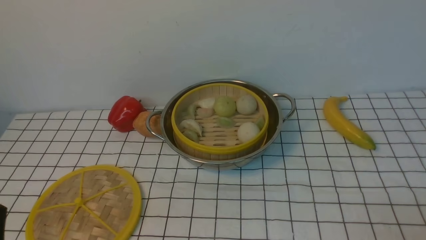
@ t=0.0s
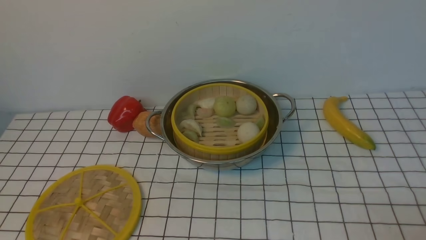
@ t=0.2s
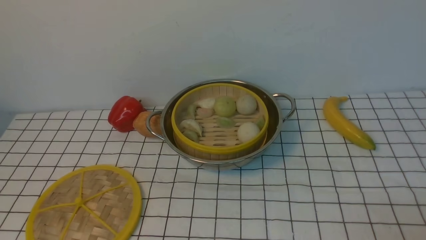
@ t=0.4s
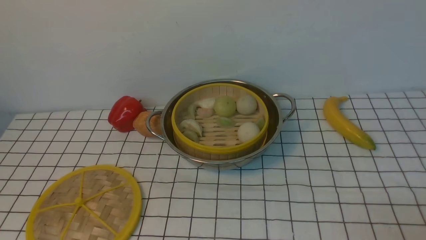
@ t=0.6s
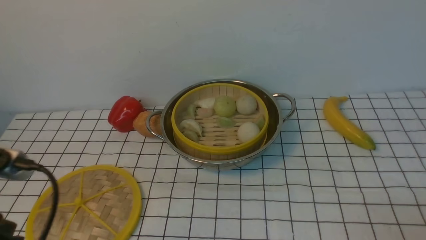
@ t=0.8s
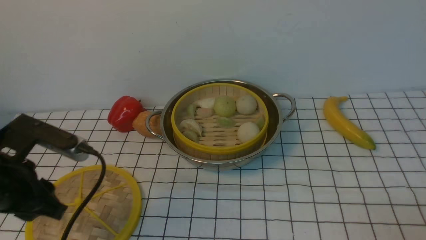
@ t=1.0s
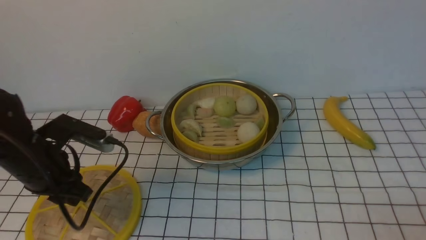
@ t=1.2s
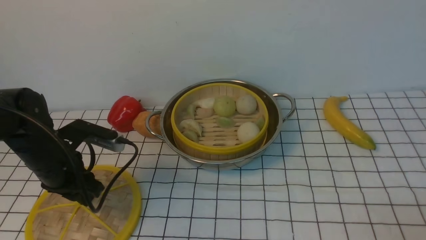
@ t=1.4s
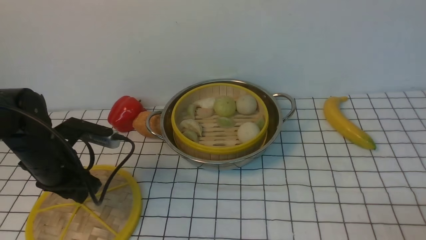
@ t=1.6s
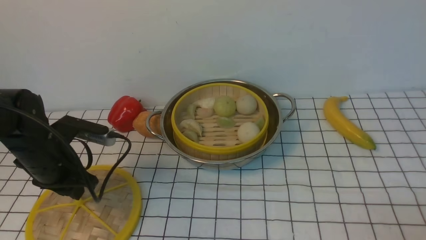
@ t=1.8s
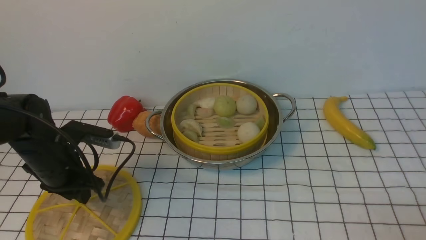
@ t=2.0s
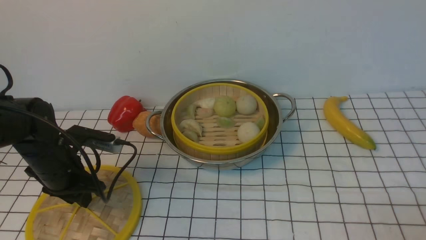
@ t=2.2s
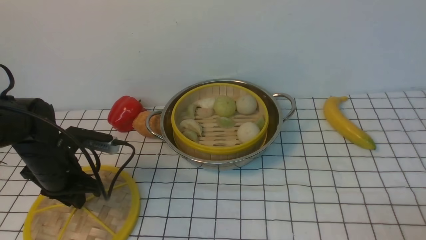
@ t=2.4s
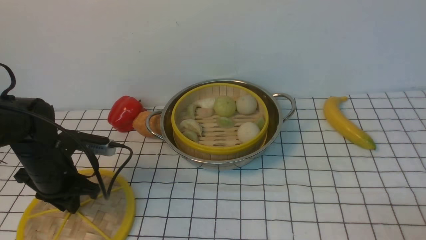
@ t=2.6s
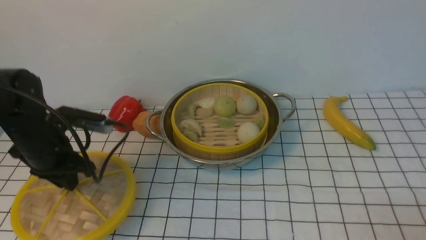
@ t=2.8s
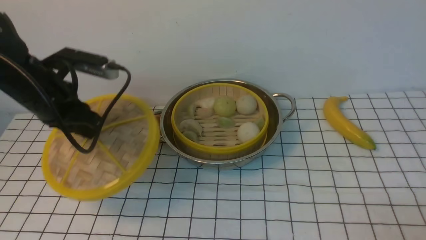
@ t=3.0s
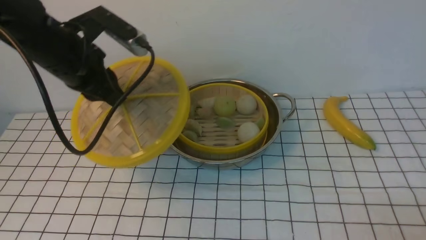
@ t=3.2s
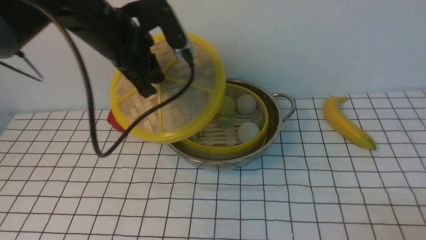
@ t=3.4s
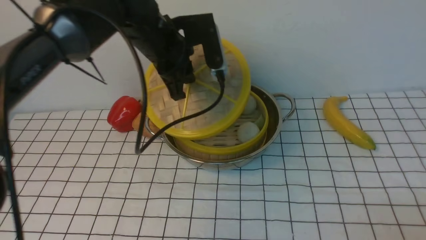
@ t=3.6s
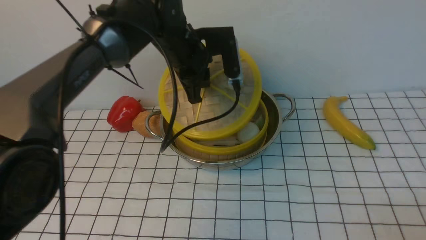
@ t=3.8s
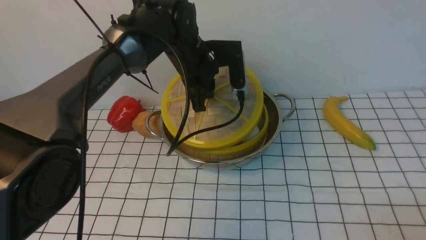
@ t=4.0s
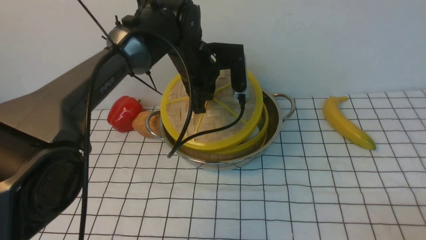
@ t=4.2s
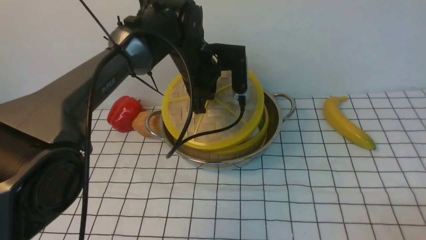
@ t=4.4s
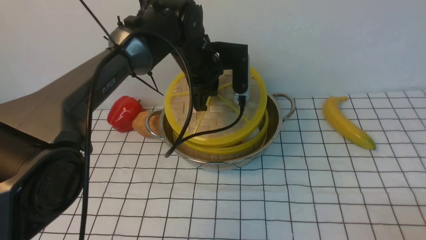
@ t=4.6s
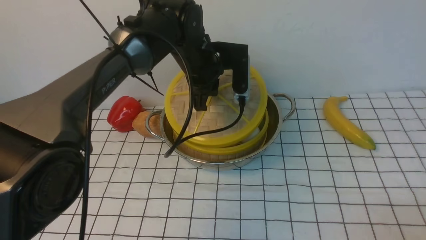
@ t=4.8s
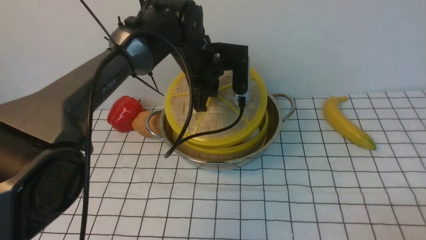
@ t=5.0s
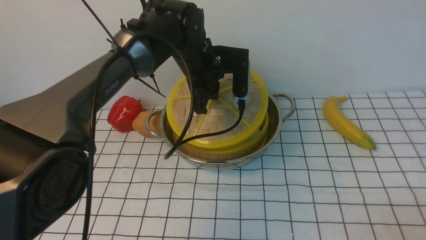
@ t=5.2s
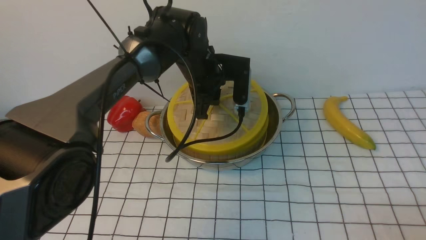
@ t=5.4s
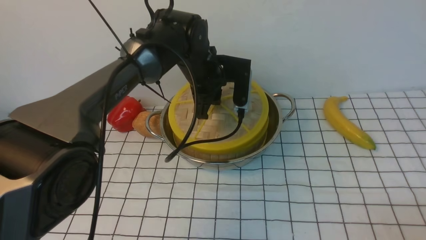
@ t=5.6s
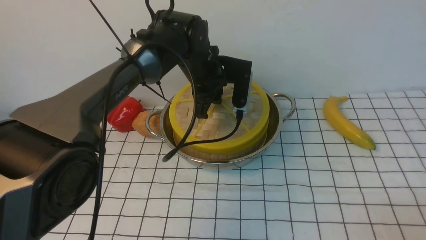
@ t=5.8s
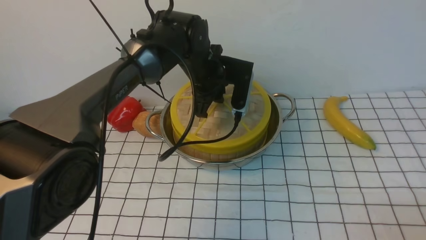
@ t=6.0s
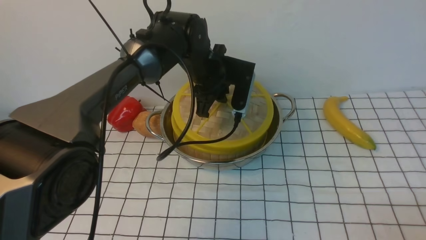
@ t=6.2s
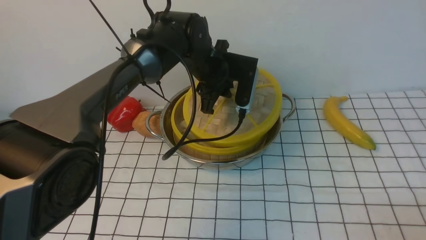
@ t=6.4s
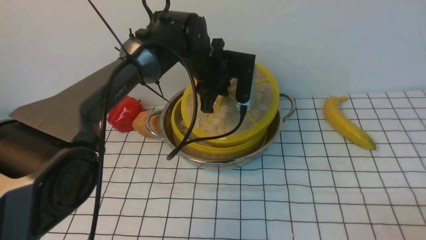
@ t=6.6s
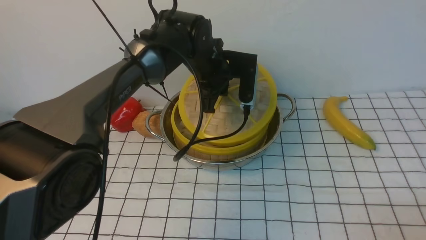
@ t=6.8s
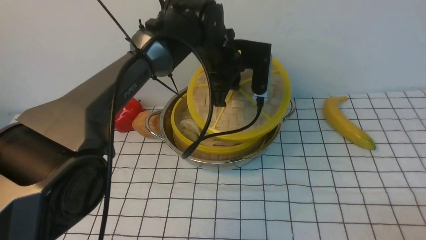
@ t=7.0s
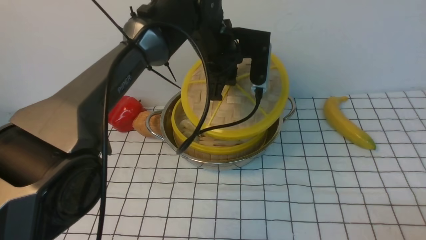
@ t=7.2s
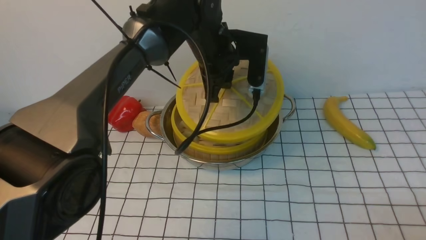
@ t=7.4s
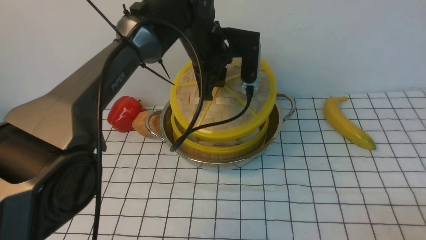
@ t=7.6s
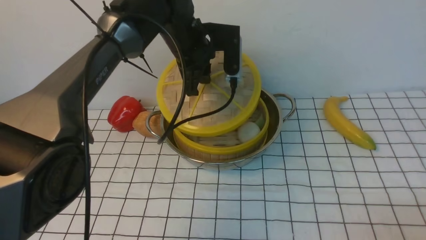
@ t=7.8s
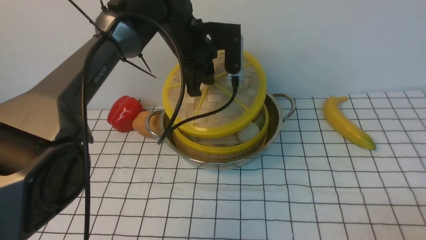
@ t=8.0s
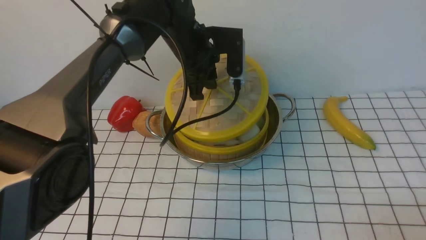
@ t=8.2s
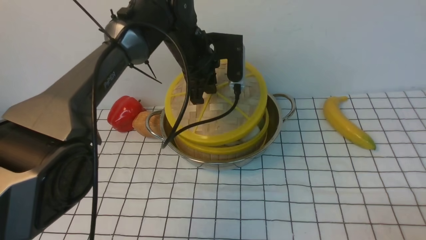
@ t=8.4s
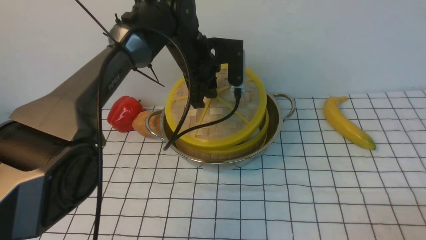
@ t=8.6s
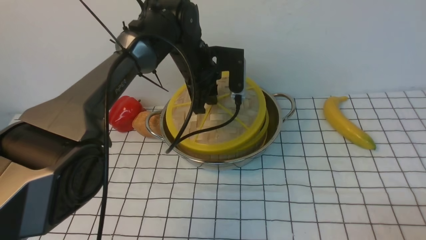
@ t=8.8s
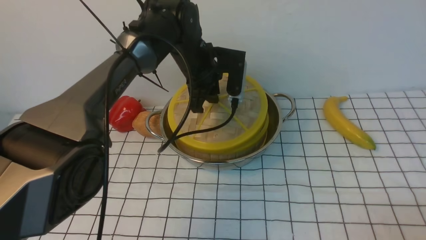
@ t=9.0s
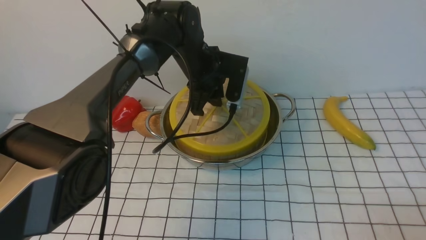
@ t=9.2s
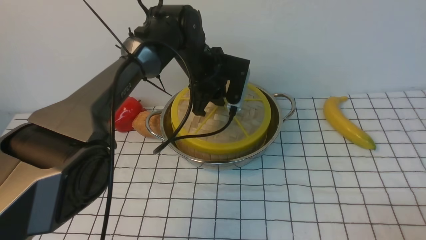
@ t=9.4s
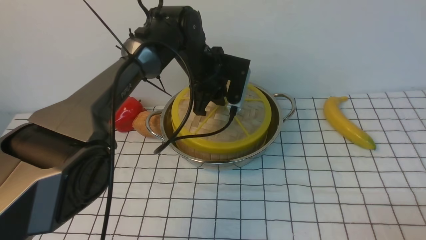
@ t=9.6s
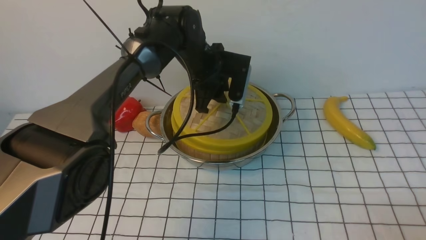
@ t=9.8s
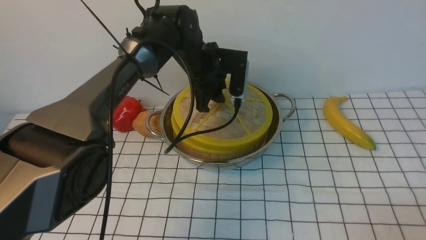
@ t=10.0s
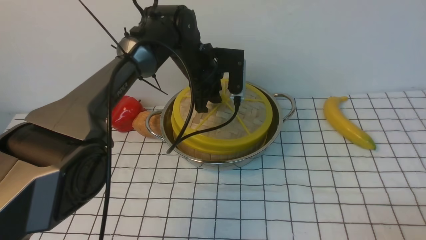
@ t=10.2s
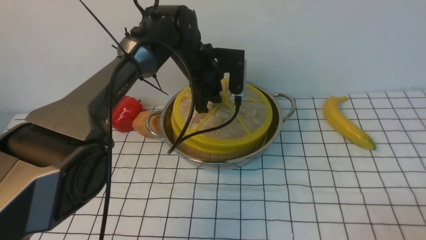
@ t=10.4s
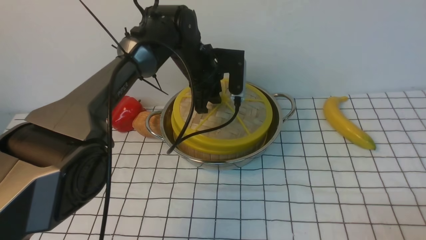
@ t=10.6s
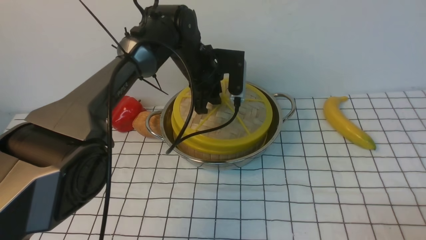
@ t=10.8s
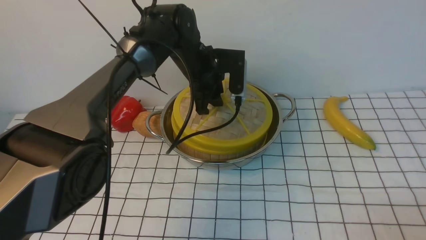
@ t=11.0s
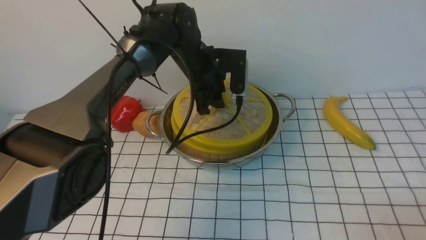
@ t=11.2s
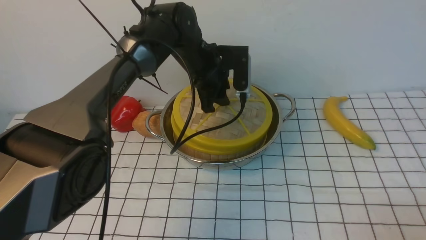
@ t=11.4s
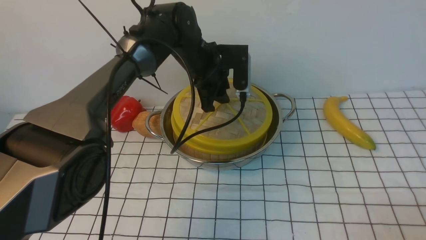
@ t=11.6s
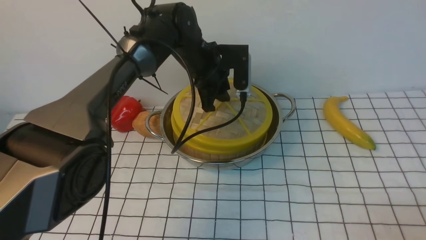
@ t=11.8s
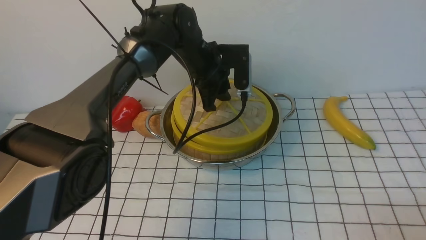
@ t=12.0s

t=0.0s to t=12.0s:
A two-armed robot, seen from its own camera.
Task of the whole recording: place the steamer in the pot on the white tablecloth, and put the lid on the steamer.
Step, t=0.0s to t=2.6s: use the left arm to lift the lid of the steamer.
t=0.0s to t=1.6s: The left gripper moves forward, about 25 cm.
t=1.6s to t=3.0s: The left gripper heads upward, covering some 10 cm, and closes up.
t=3.0s to t=4.4s: The left gripper shifts roughly 20 cm to the right and forward.
t=4.4s to t=6.0s: The grippers make only small movements.
t=6.0s to t=7.6s: The left gripper shifts approximately 5 cm upward.
t=7.6s to t=9.0s: The left gripper moves about 5 cm.
t=9.0s to t=12.0s: The grippers make only small movements.

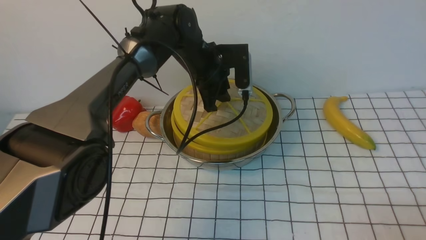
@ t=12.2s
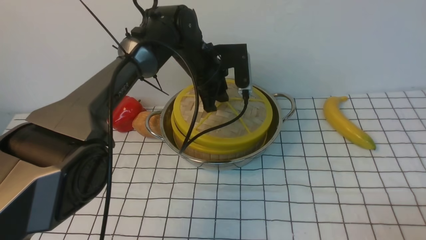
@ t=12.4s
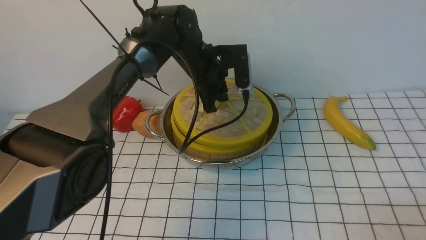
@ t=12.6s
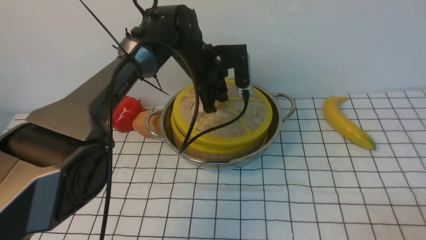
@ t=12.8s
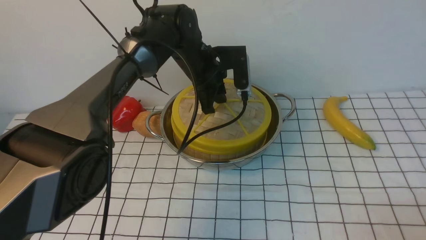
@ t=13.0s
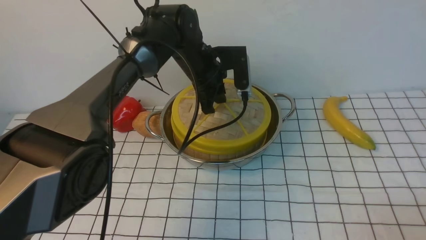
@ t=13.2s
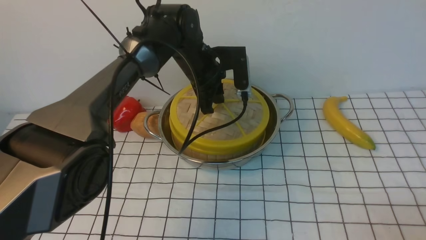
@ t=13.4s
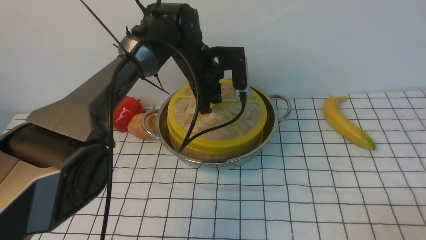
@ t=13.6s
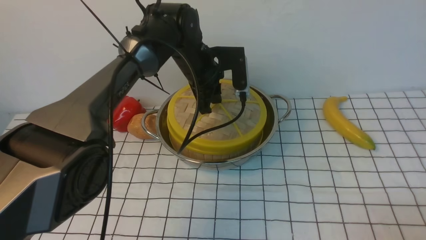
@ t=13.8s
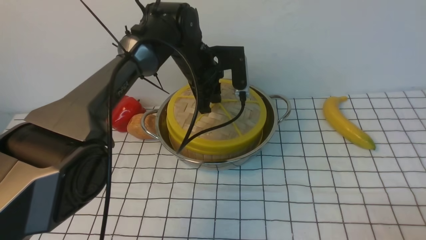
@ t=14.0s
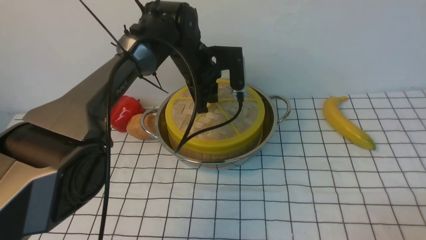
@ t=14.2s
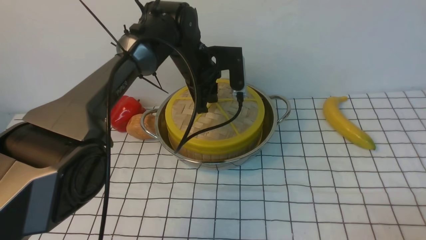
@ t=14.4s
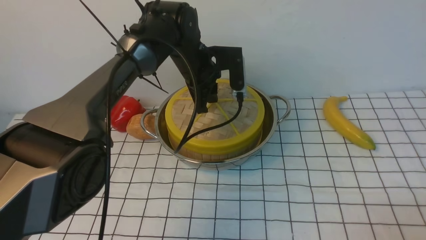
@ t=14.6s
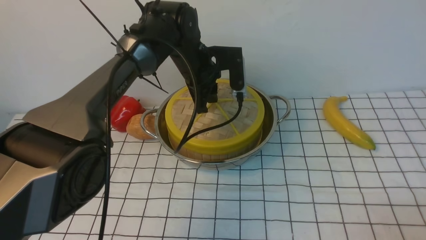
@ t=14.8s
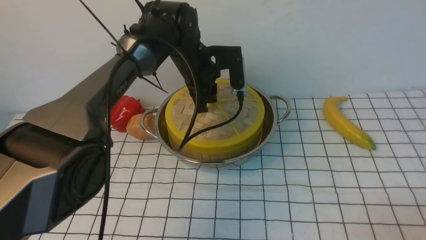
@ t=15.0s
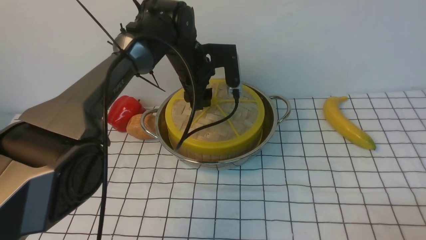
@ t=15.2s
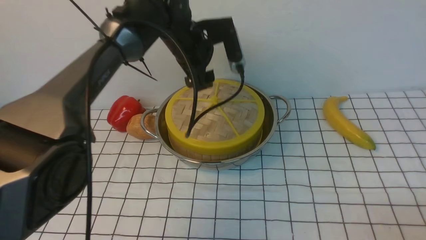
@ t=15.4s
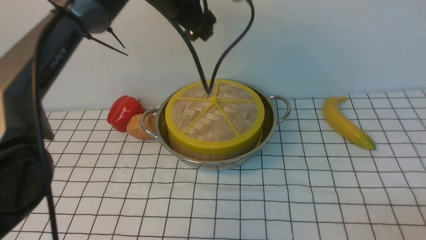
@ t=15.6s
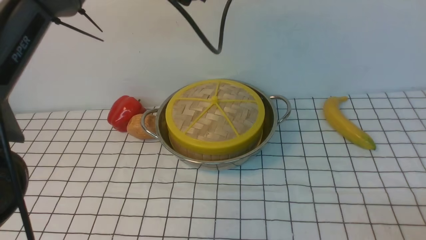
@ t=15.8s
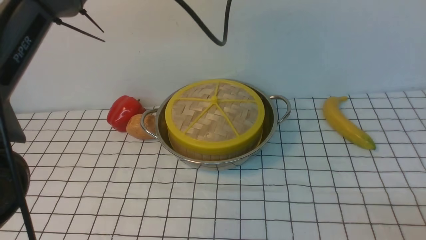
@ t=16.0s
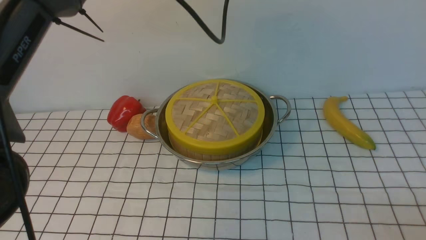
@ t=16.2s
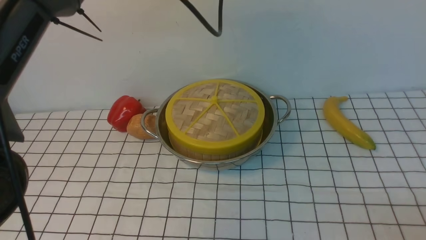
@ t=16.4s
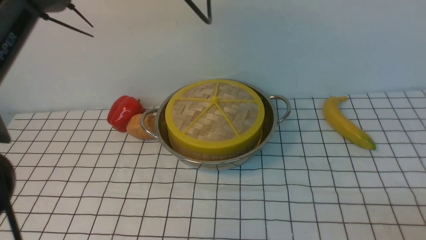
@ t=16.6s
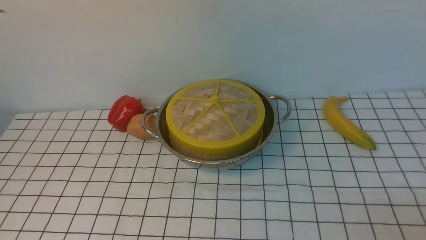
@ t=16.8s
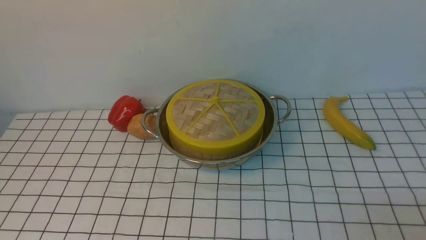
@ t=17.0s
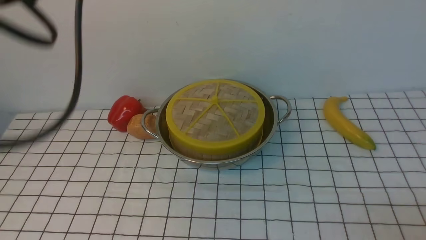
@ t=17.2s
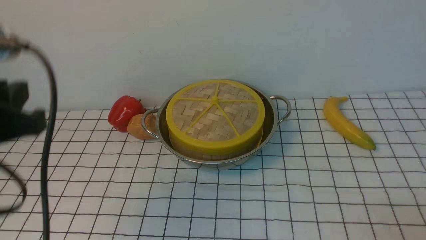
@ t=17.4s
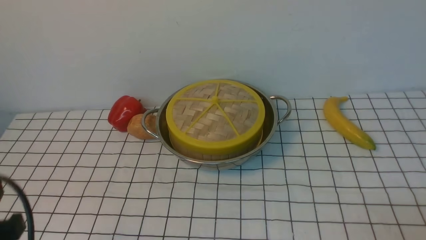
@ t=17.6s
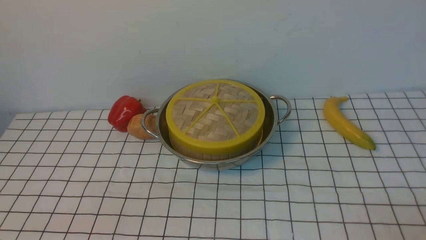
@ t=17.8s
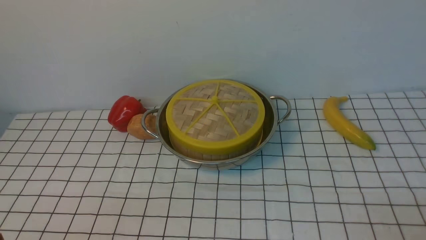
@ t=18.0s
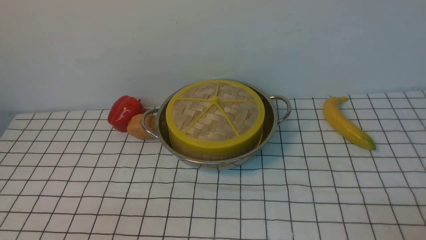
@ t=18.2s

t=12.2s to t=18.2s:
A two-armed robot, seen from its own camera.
Task of the whole recording: place the steamer in the pot on the white tablecloth, and put the lid on the steamer.
Step, t=12.2s to t=15.4s: use the left arm to place the steamer lid on the steamer.
t=12.2s to t=13.8s: The left gripper closes up.
t=13.8s to t=15.2s: The left gripper opens.
t=15.2s to t=16.6s: The left gripper is displaced upward by roughly 20 cm, and closes its fingers.
t=16.6s to t=18.2s: The left gripper travels backward and downward by approximately 40 cm.
